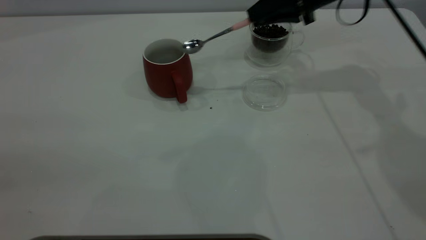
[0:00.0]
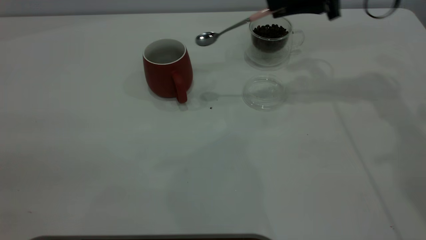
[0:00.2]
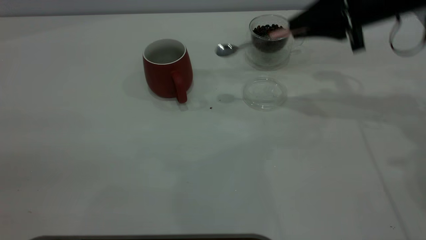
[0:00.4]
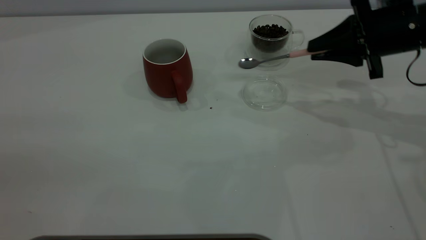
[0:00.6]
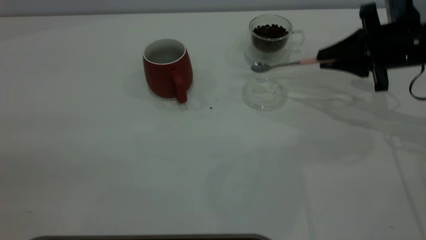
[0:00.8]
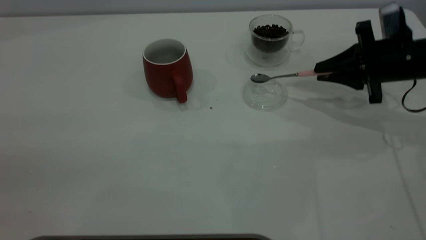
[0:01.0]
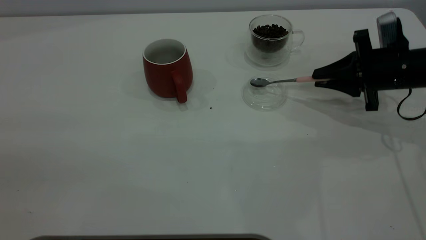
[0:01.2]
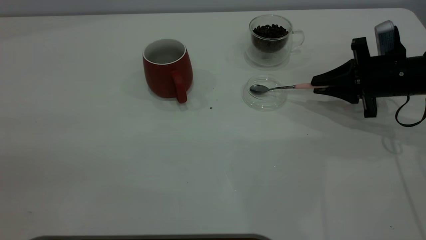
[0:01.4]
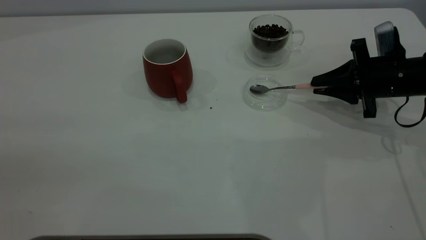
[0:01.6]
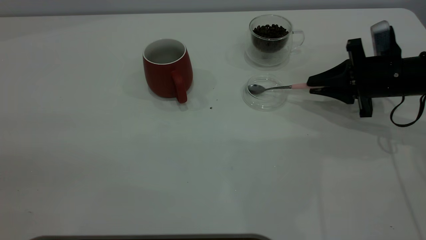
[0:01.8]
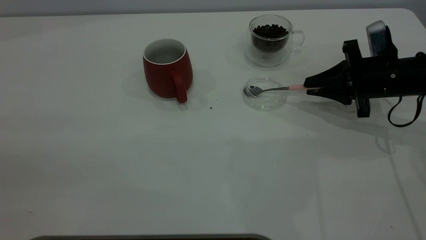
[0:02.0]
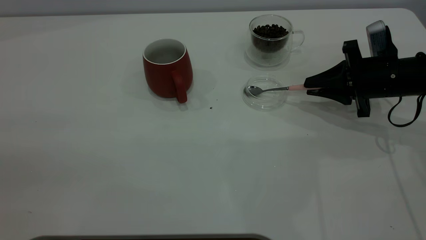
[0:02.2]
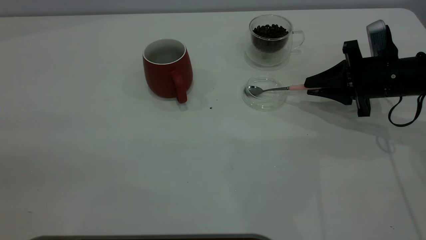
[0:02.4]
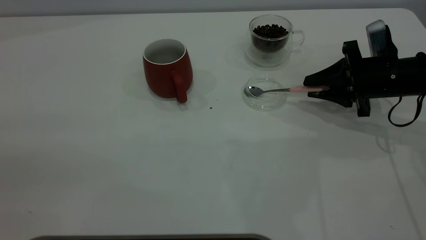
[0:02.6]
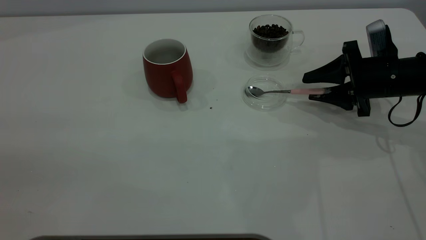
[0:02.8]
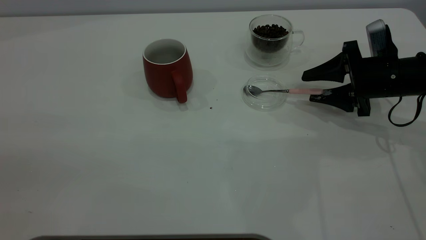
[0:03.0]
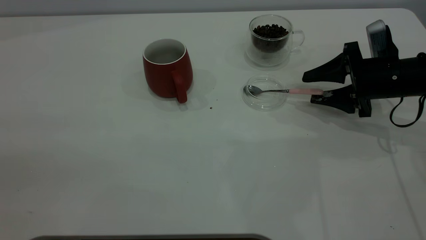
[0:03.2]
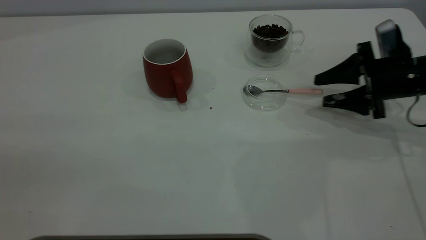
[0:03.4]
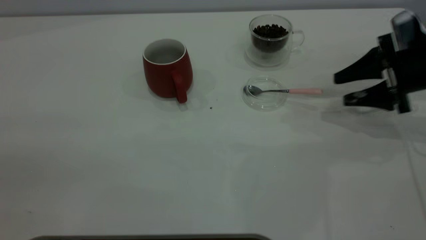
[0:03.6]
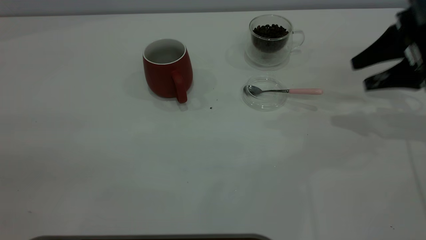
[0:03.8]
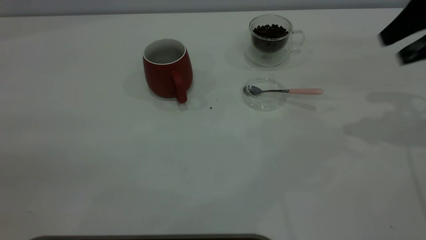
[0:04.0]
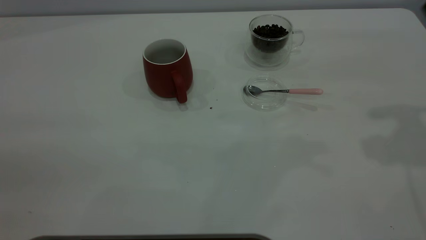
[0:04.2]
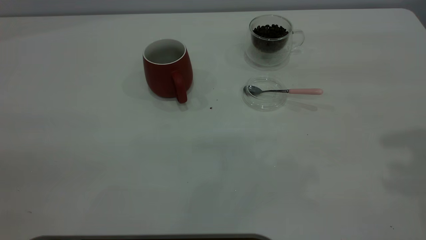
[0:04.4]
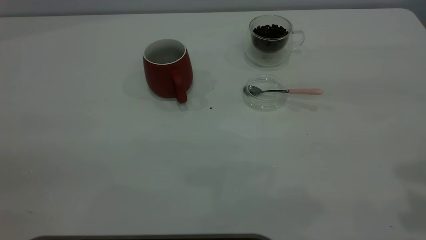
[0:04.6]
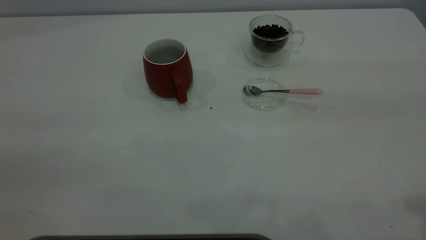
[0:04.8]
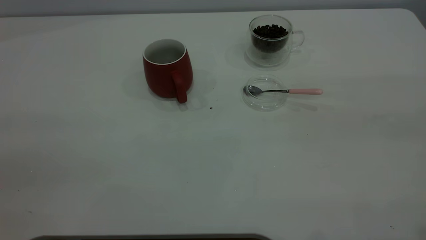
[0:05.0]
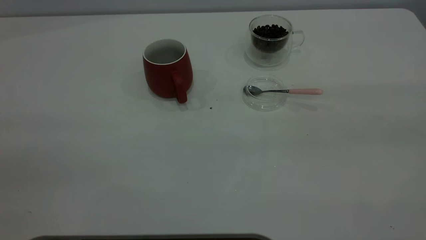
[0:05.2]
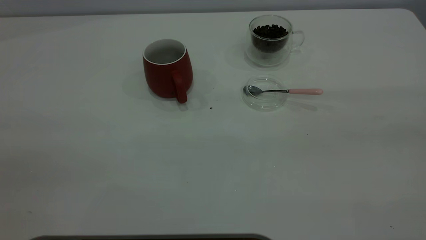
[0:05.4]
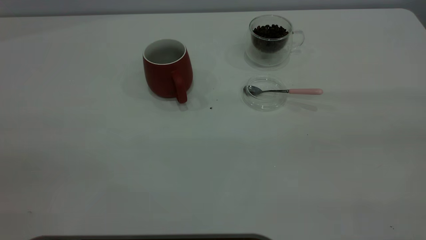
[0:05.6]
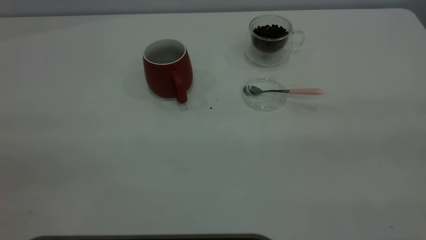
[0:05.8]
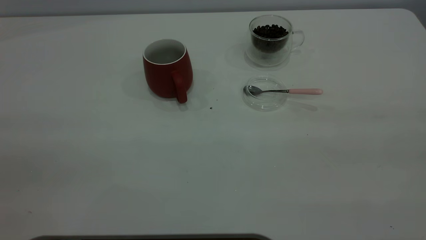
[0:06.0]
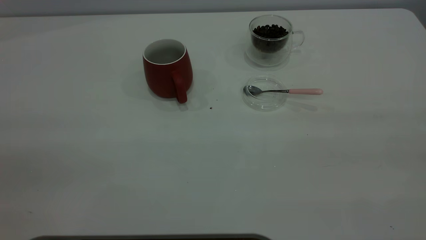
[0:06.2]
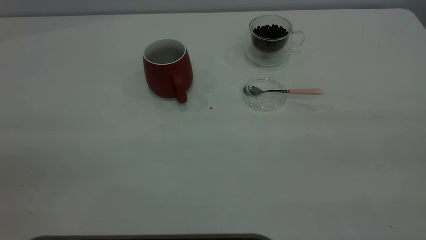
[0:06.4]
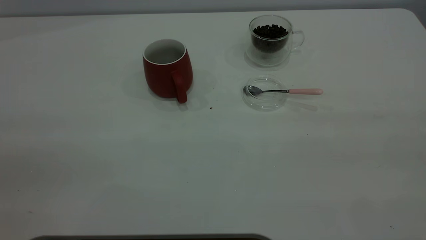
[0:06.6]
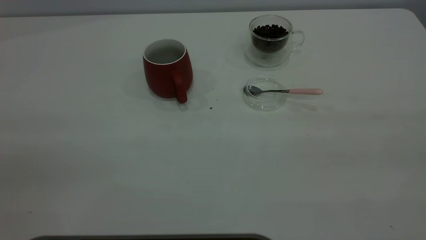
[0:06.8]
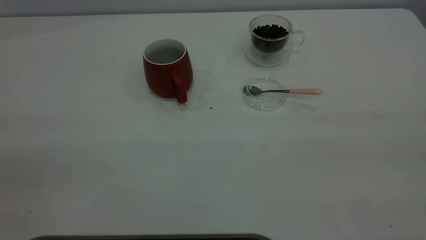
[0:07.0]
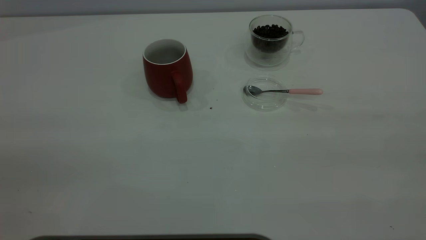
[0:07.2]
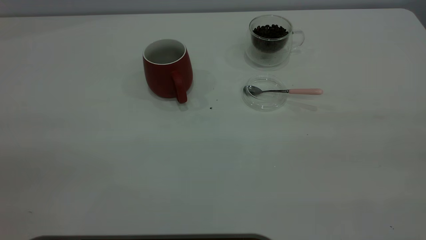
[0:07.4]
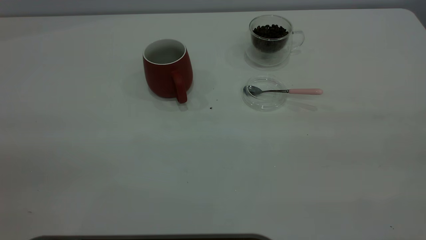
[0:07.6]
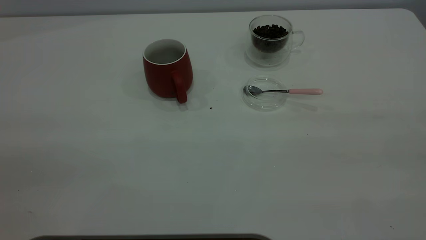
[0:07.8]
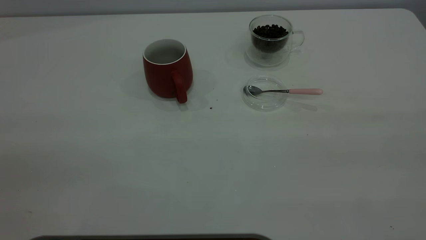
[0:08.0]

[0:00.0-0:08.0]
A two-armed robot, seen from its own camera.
Task of the whole recording: the left gripper place the red cup in the center of the table, the right gripper take the pink spoon from the cup lid and scoop out the coffee beans from the coffee cup and put them into the red cup, the right gripper put the spoon back into the cup lid.
Step, 0:00.2 to 0:03.4: Place the spoon back in its original place.
0:00.0 to 0:01.6: The right gripper goes about 20 cm downward, to the right and backward.
0:01.6 to 0:03.2: The right gripper opens up.
0:03.2 to 0:04.8: The right gripper moves upward and backward, roughly 40 cm.
0:06.4 to 0:08.0: Both grippers stay put.
